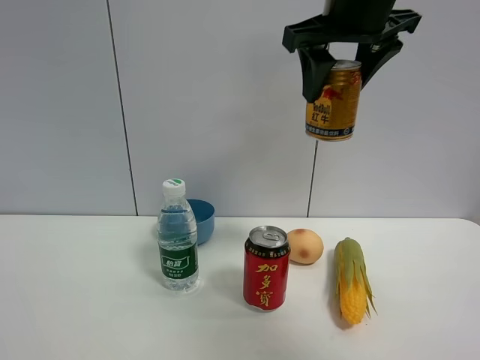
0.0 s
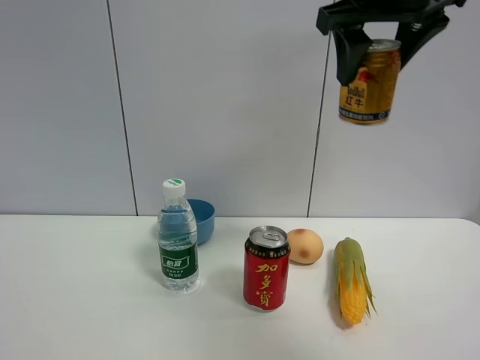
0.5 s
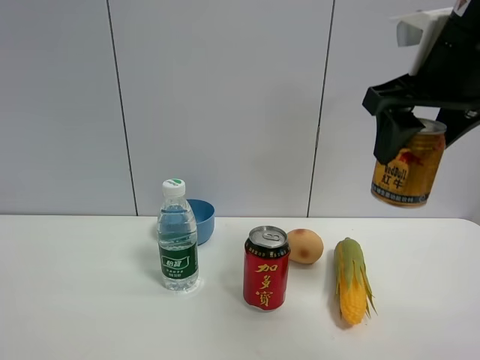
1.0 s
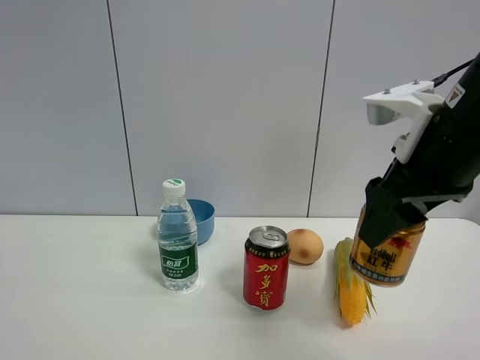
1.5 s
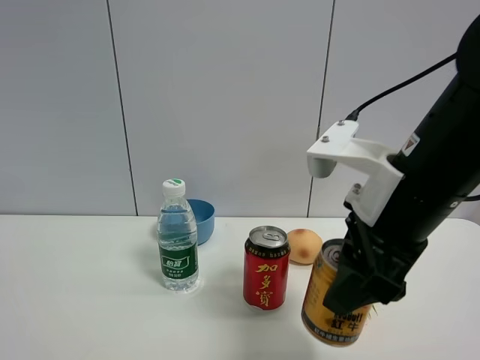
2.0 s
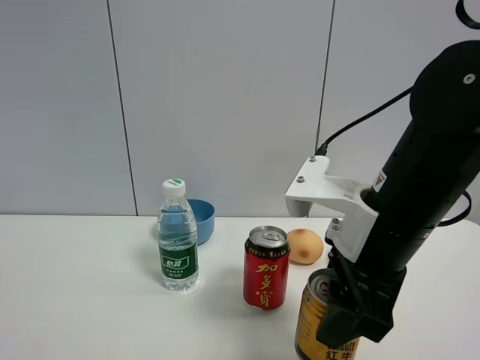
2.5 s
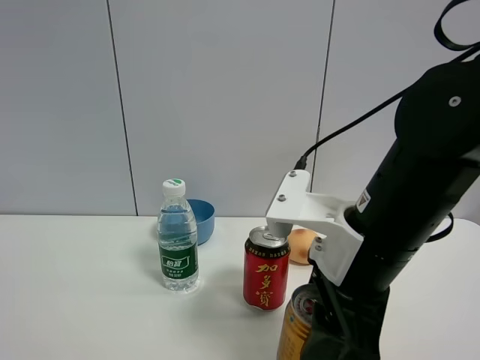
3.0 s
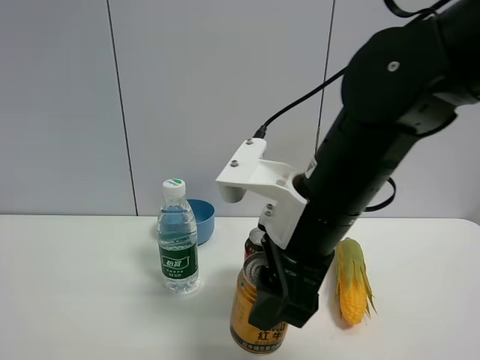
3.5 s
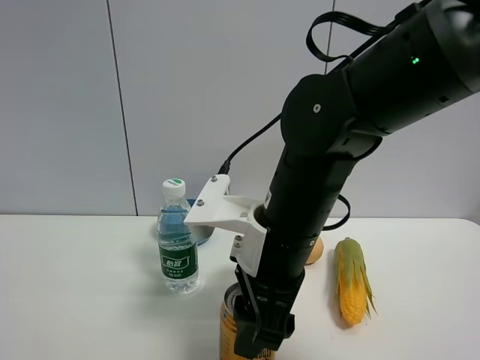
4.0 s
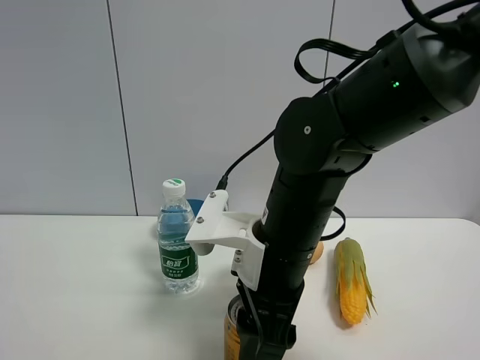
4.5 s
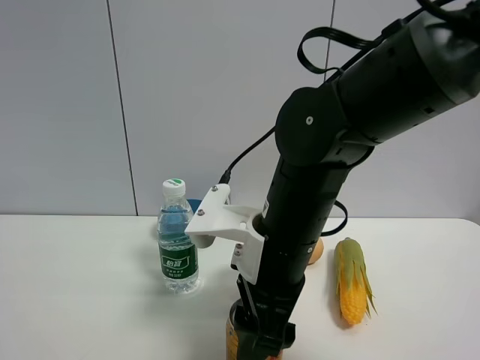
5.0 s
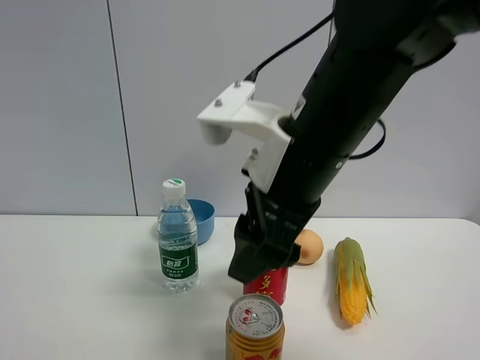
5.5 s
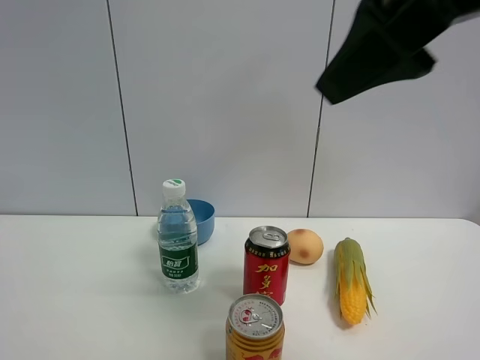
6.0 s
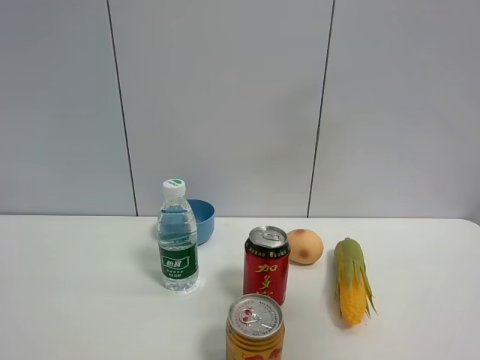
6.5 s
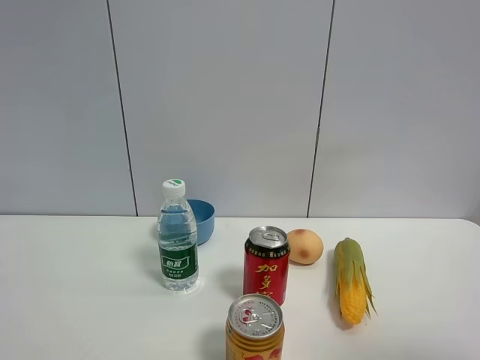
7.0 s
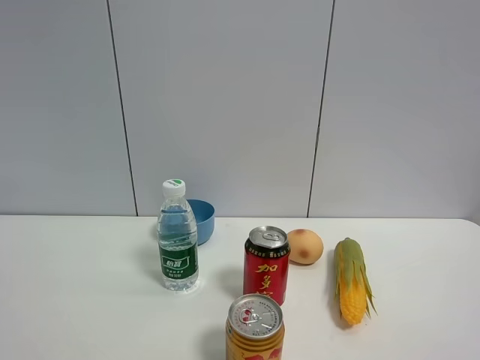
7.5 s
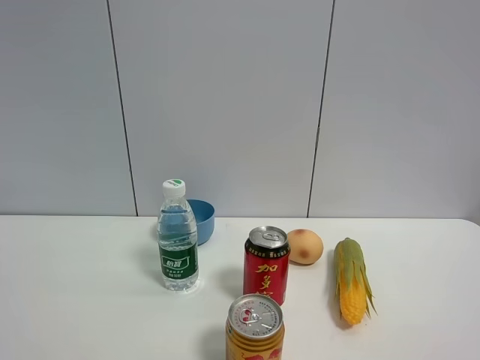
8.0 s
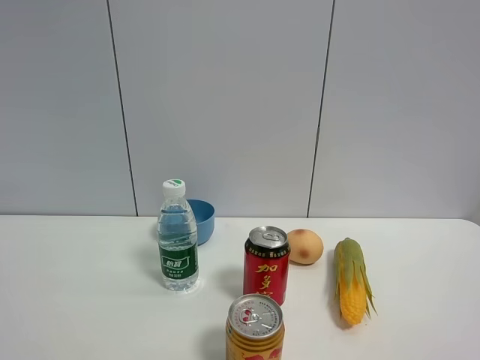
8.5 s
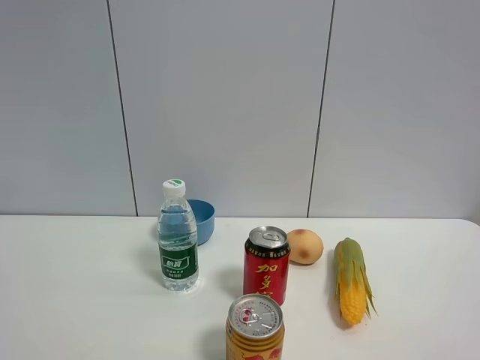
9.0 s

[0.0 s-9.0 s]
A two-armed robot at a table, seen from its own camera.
Task of the whole recording: the gripper move the object.
Step, 0.0 to 5.0 s: Place the red bull on the table with the right gripper.
0.0 to 2.0 s: The right gripper heads downward and backward, covering roughly 20 cm.
2.0 to 4.5 s: The right gripper moves to the left and downward, about 10 cm.
4.5 to 7.0 s: The right gripper heads to the right, backward and upward, covering some 40 cm, and opens its fingers.
7.0 to 9.0 s: The right gripper travels downward by about 5 cm.

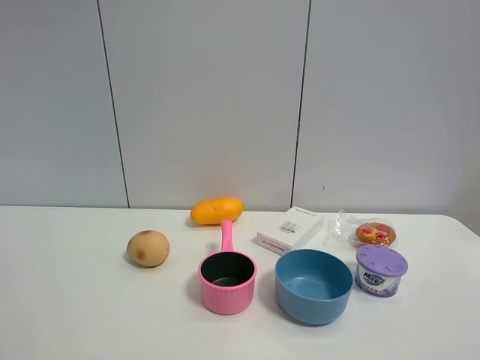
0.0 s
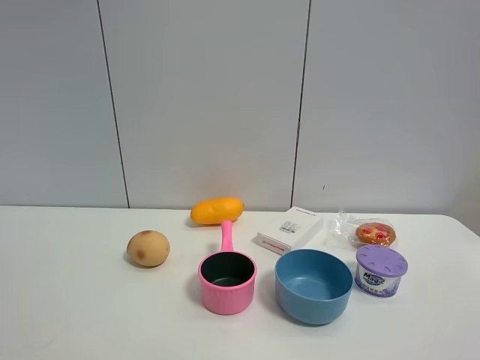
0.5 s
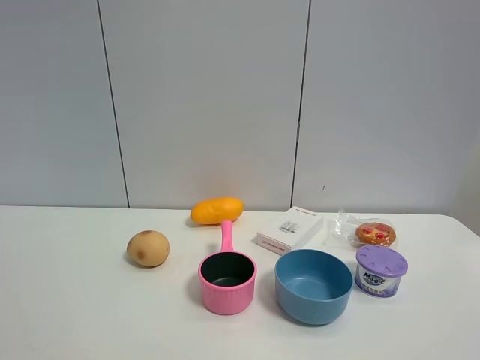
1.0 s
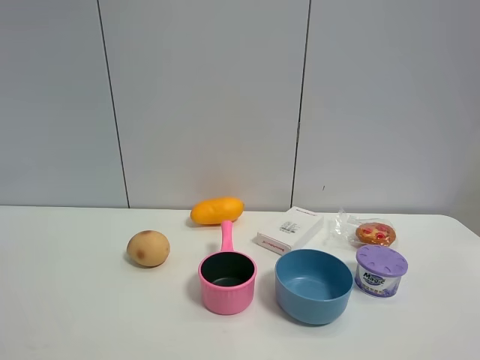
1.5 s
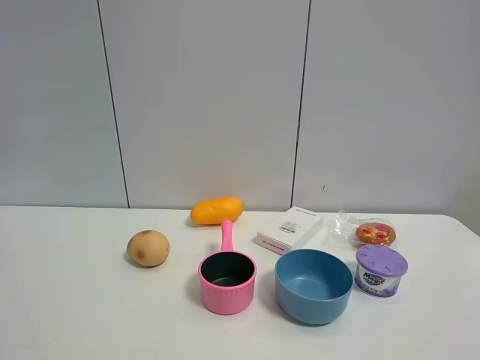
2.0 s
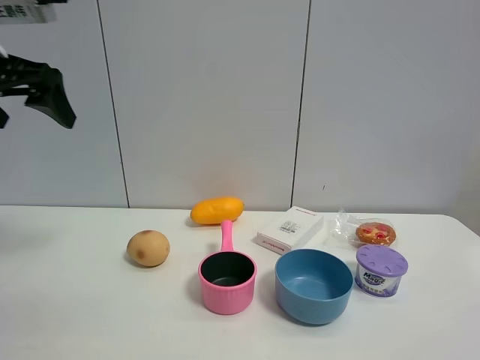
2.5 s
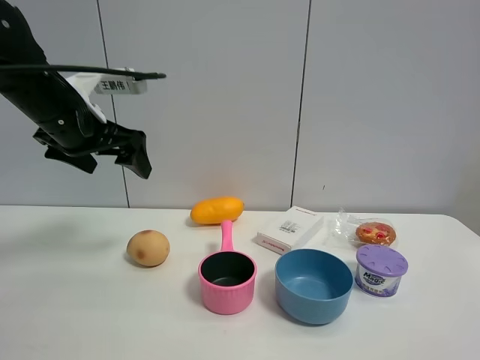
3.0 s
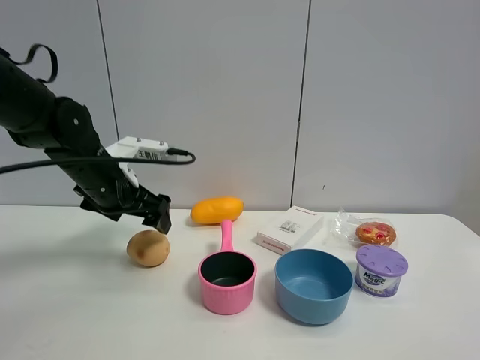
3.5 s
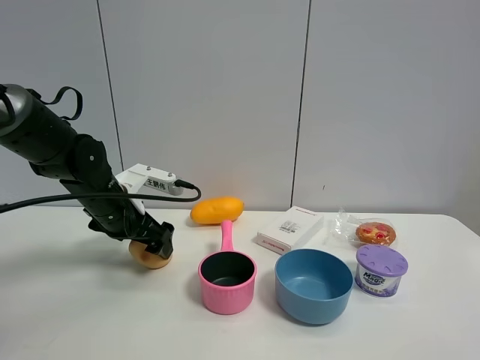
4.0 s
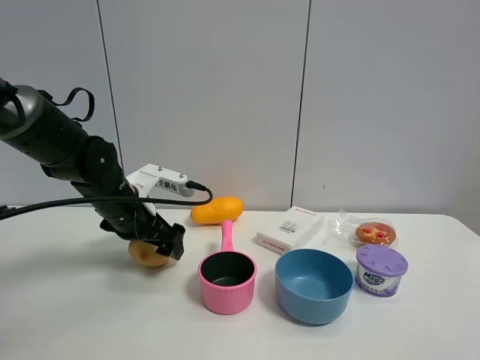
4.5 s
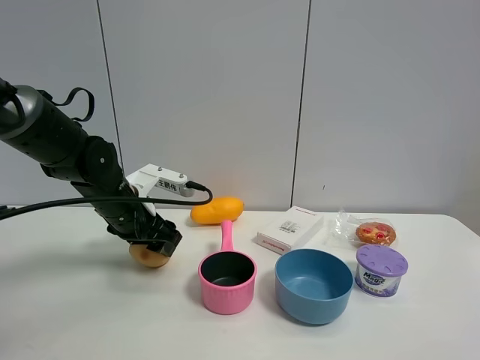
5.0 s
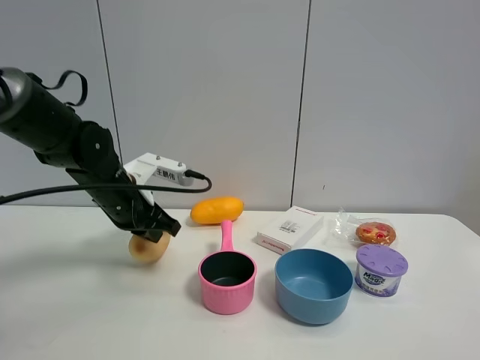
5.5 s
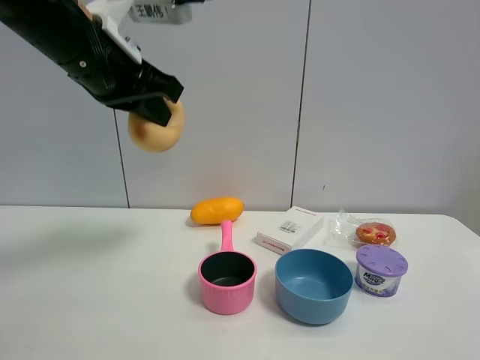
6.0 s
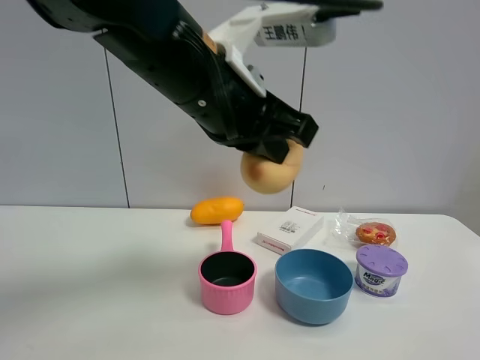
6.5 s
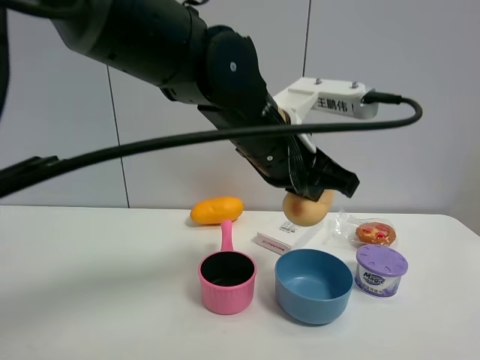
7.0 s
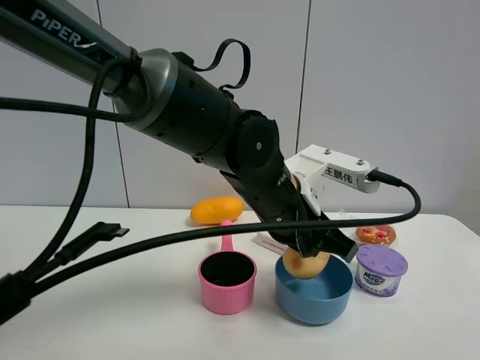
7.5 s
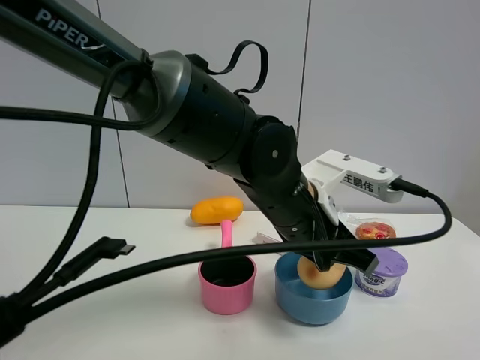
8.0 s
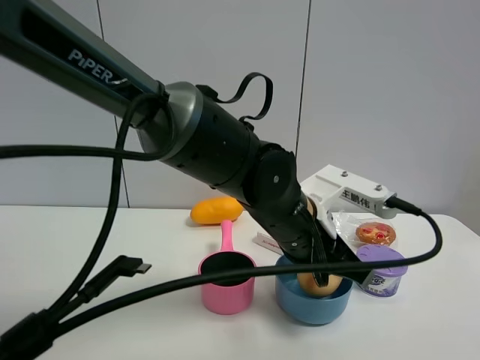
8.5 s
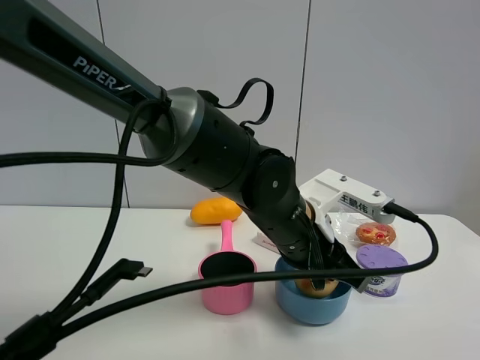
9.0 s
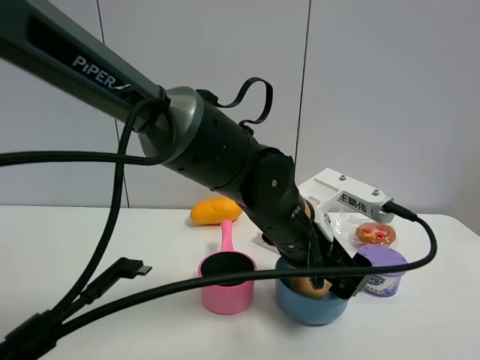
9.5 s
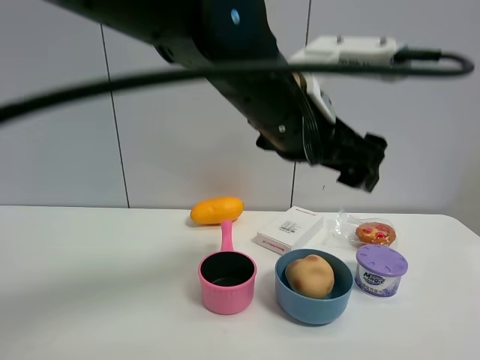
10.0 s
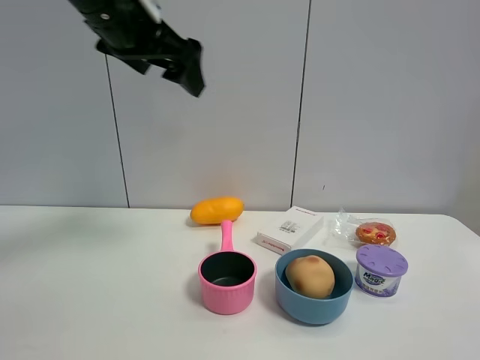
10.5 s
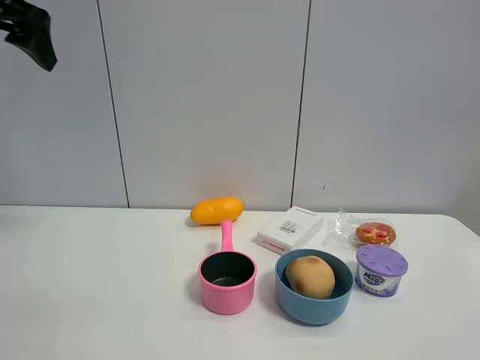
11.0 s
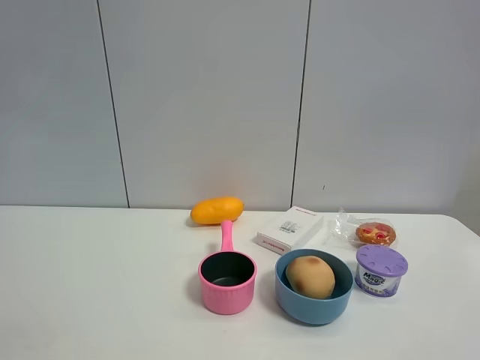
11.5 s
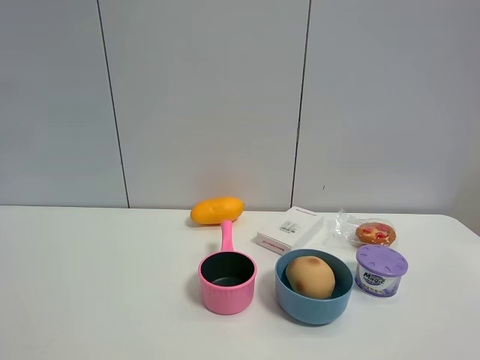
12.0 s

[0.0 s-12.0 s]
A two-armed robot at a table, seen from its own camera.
Task of the whole recording: the gripper move the object.
Step, 0.0 to 5.0 s: Grasp the egg yolk pastry with the left gripper.
Step, 5.5 to 9.0 s: Place the egg yolk pastry into the blue bowl with the left gripper.
2.0 to 4.0 s: The left gripper is displaced downward, forward and to the right by roughly 40 cm.
4.0 to 6.0 s: The left gripper moves upward and backward, approximately 25 cm, and closes its fingers.
6.0 to 8.0 s: The left gripper is displaced to the right and downward by some 25 cm.
8.0 to 10.0 s: The left gripper moves upward, some 10 cm, and opens.
10.0 to 12.0 s: The left gripper goes about 40 cm to the left.

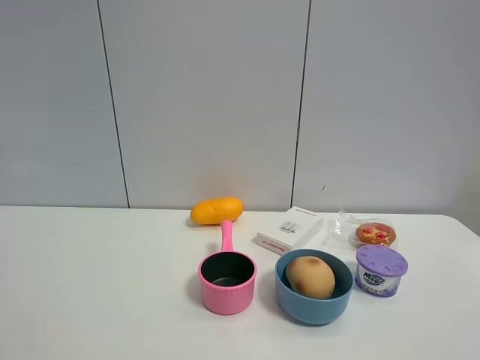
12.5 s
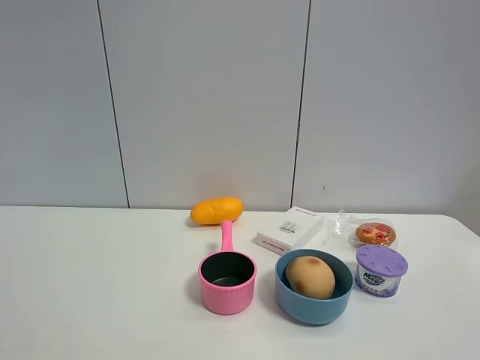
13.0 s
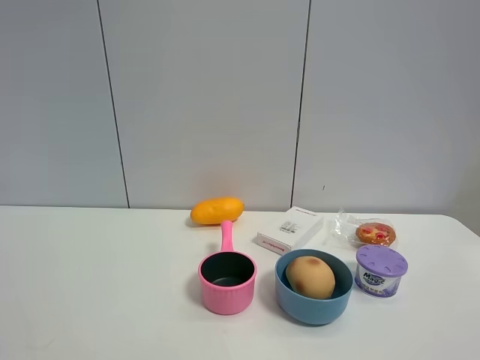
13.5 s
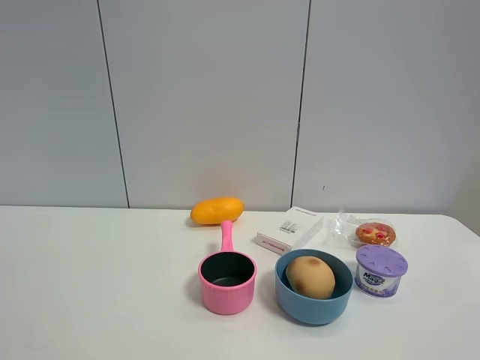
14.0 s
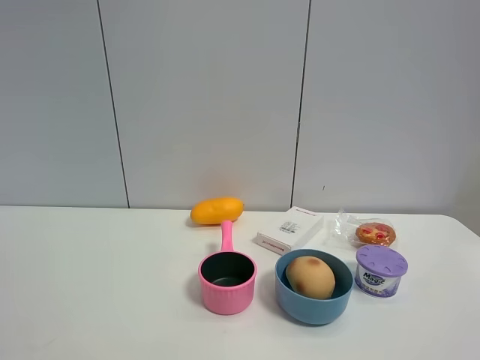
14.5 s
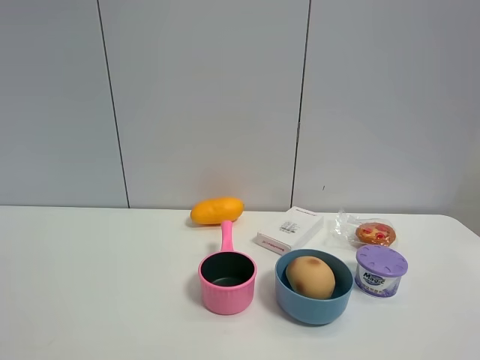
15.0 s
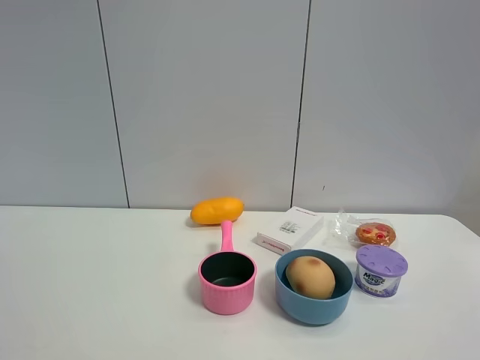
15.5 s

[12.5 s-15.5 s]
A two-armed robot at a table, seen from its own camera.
Task of the whole recording: the gripper move the object.
14.0 to 15.5 s: Neither gripper changes place.

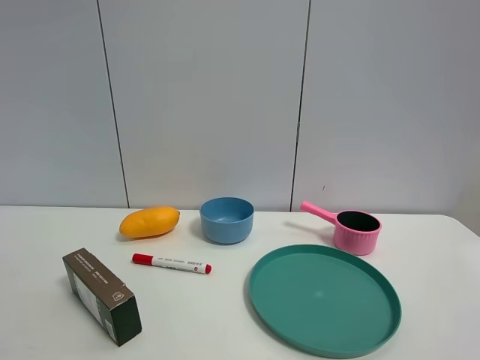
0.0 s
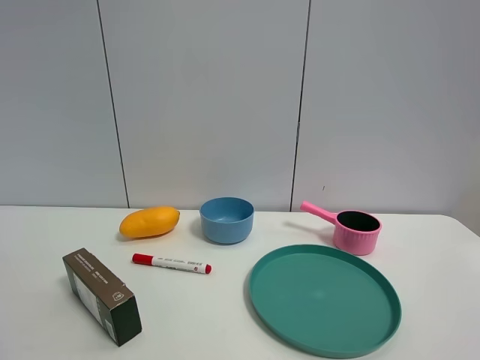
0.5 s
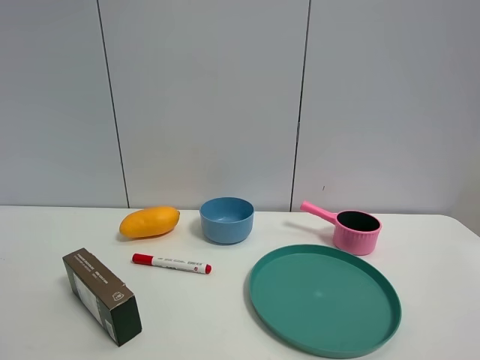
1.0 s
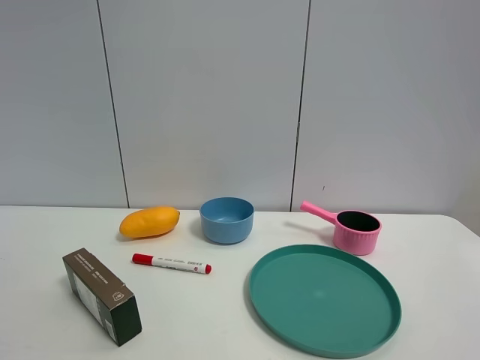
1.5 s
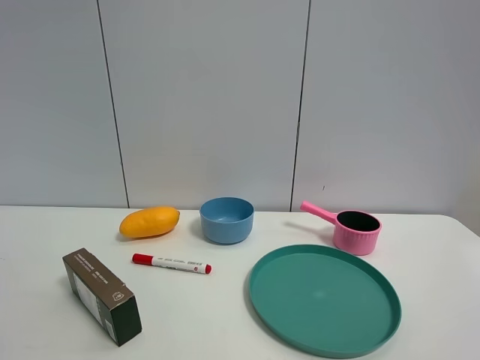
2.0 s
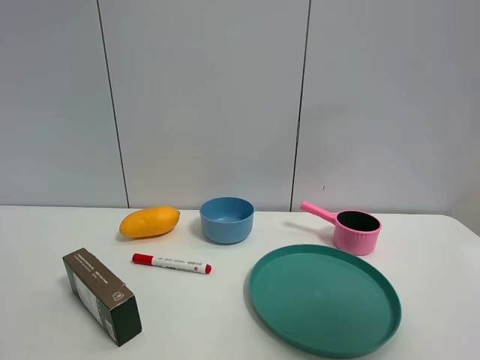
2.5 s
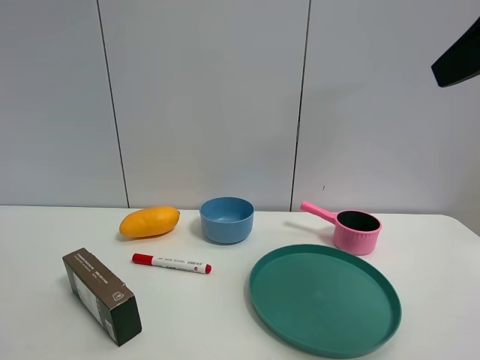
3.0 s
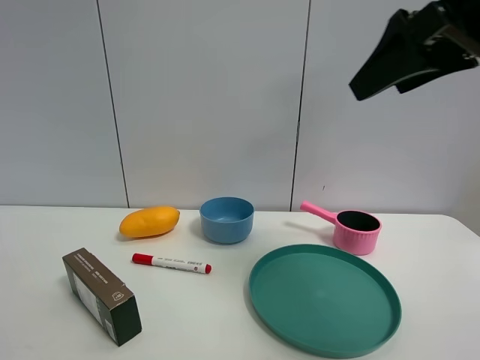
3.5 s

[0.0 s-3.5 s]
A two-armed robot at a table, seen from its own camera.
Task of the whole recording: the gripper move the object.
2.0 to 3.5 s: The right gripper is displaced forward by about 30 cm.
